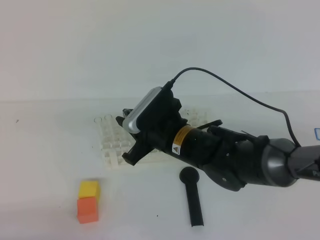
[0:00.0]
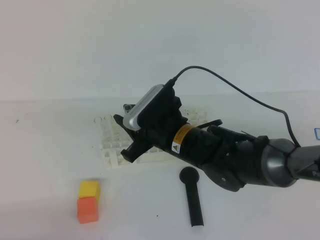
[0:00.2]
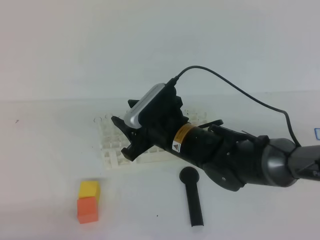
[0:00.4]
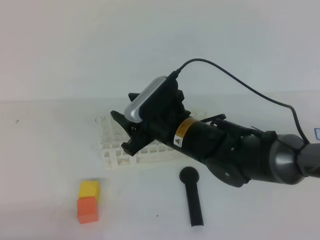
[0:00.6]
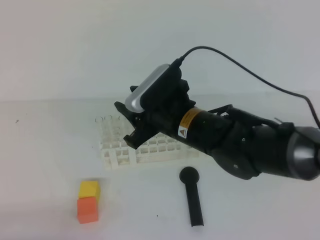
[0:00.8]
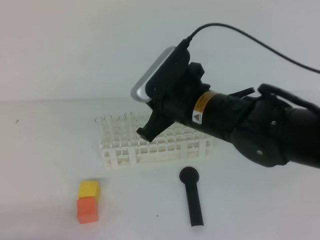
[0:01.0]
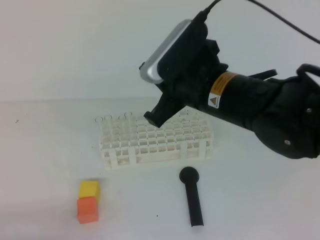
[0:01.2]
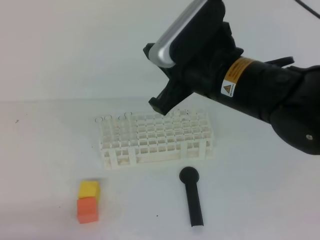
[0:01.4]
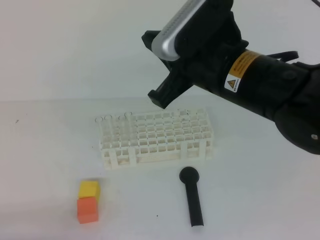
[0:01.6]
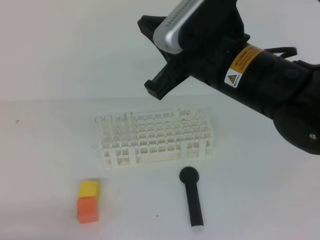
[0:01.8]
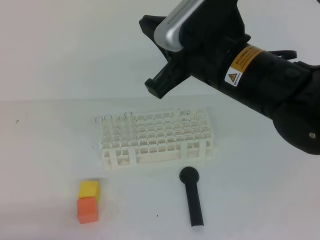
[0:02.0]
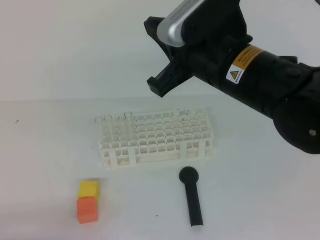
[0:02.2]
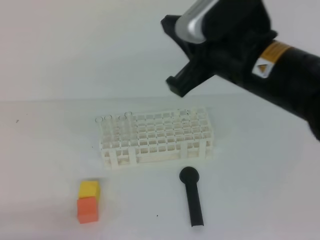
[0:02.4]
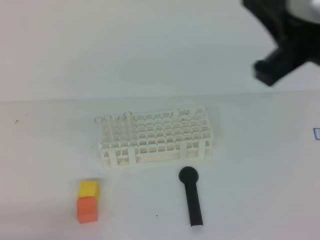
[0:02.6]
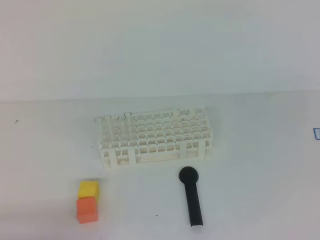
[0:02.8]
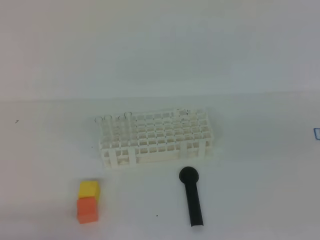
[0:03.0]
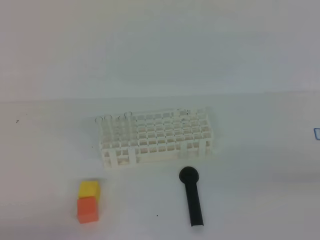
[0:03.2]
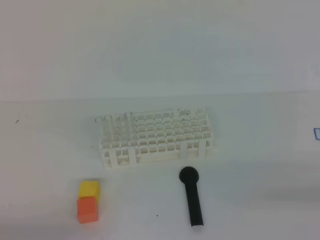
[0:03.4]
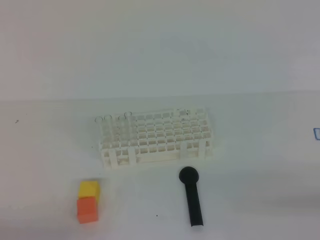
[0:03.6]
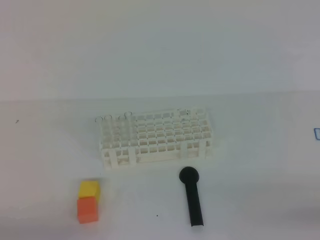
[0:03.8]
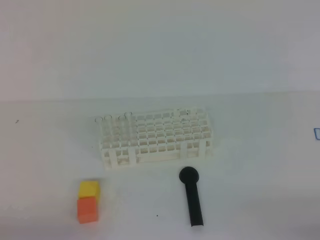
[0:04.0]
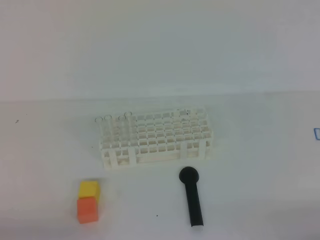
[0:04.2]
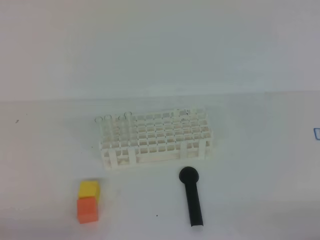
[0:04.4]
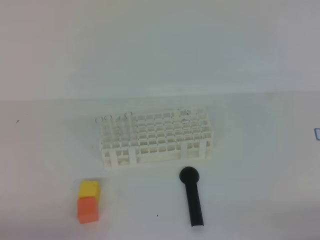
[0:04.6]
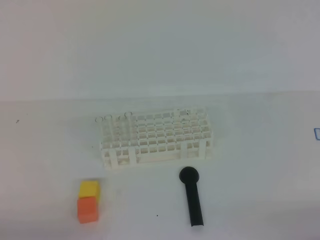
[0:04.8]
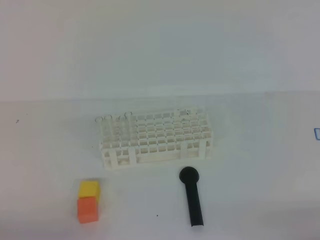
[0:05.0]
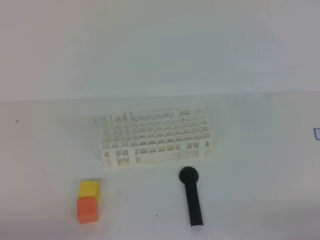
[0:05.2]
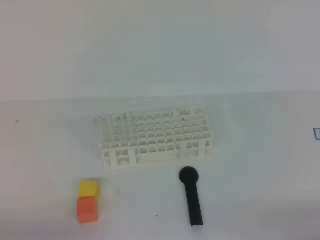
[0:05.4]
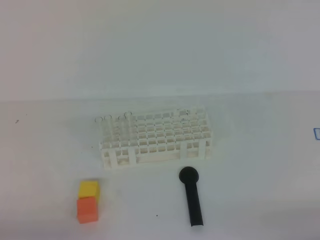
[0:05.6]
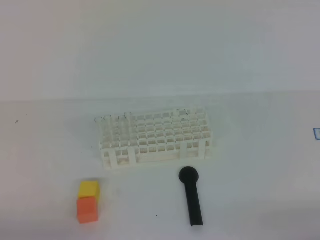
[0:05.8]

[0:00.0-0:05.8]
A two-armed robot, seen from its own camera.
0:00.0 to 0:01.4: The right gripper shifts approximately 15 cm upward, and opens, then closes once more.
0:01.4 to 0:02.8: The right gripper goes roughly 20 cm to the right and backward.
0:02.8 to 0:04.4: The right gripper shifts approximately 25 cm downward, backward and to the right.
